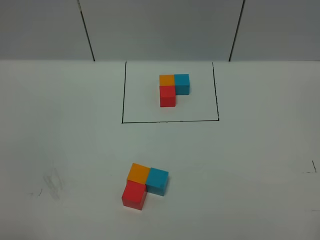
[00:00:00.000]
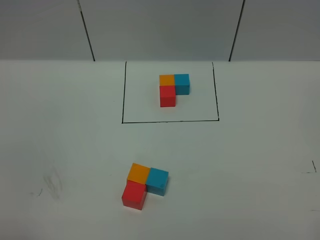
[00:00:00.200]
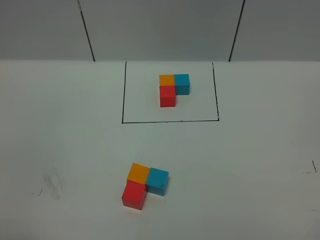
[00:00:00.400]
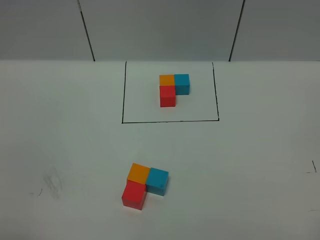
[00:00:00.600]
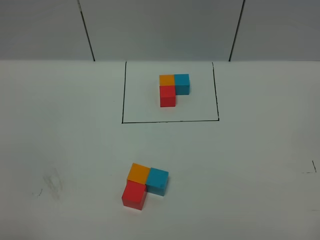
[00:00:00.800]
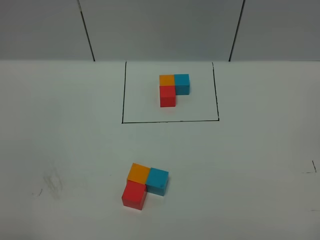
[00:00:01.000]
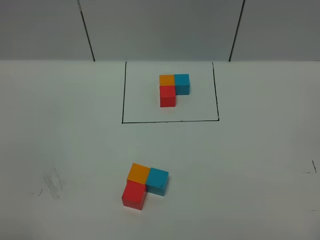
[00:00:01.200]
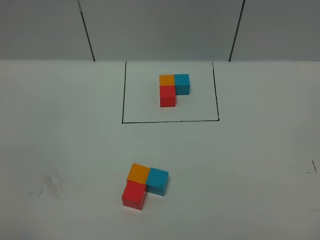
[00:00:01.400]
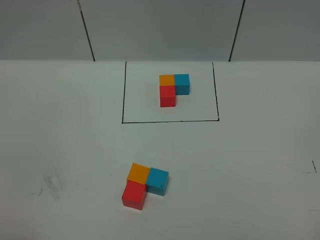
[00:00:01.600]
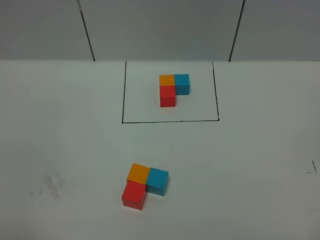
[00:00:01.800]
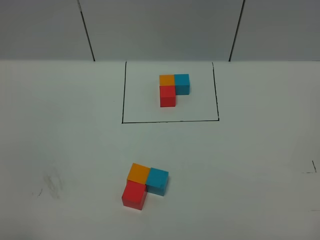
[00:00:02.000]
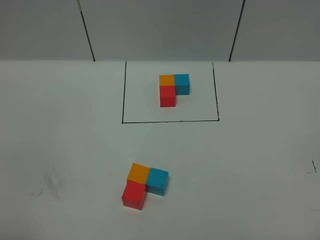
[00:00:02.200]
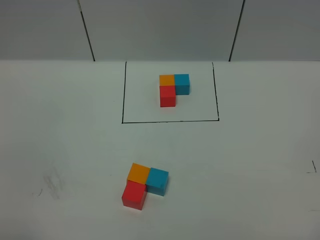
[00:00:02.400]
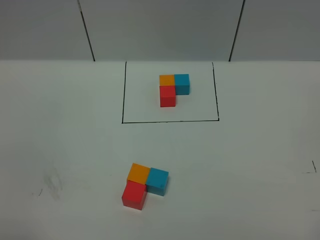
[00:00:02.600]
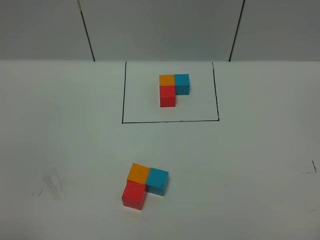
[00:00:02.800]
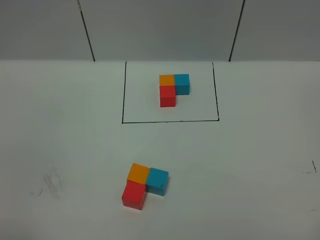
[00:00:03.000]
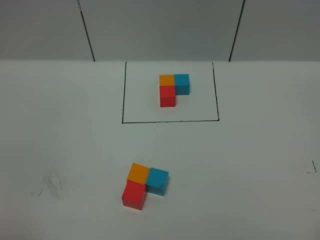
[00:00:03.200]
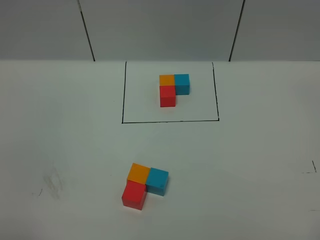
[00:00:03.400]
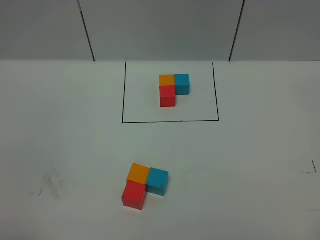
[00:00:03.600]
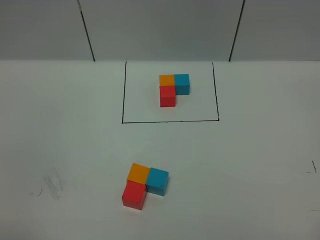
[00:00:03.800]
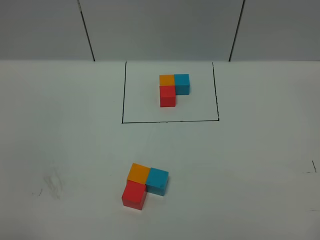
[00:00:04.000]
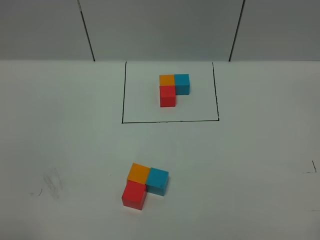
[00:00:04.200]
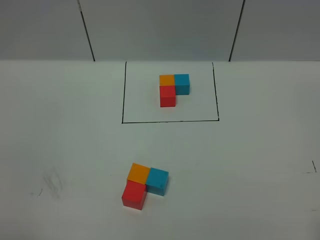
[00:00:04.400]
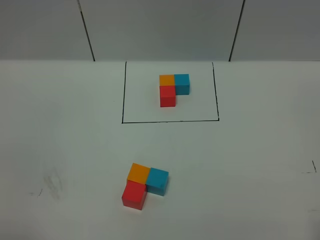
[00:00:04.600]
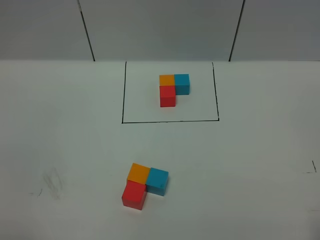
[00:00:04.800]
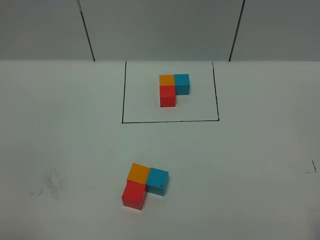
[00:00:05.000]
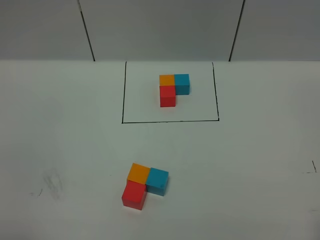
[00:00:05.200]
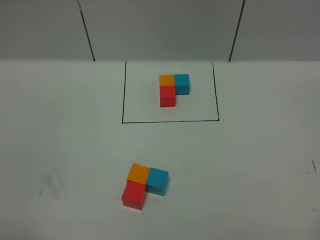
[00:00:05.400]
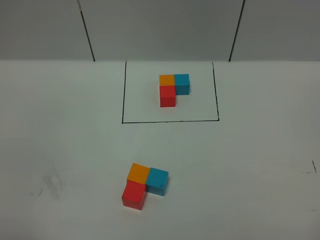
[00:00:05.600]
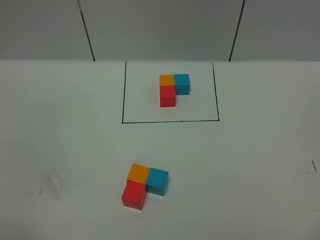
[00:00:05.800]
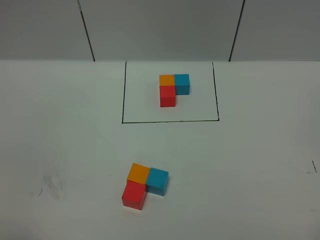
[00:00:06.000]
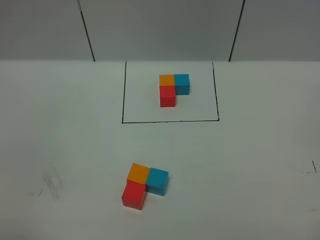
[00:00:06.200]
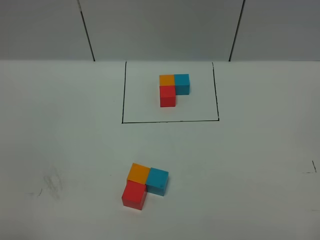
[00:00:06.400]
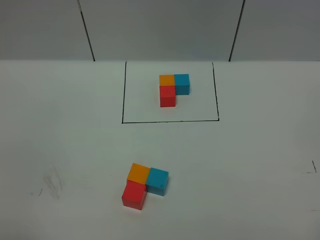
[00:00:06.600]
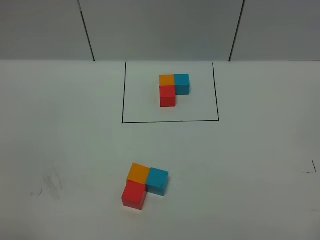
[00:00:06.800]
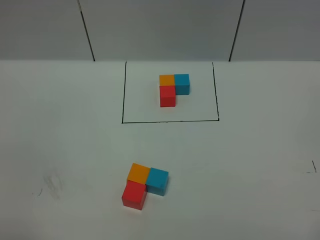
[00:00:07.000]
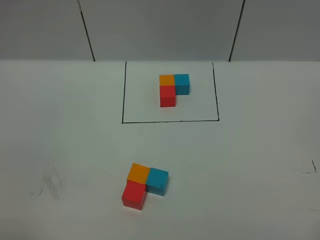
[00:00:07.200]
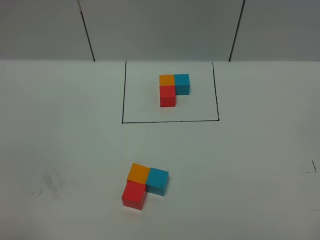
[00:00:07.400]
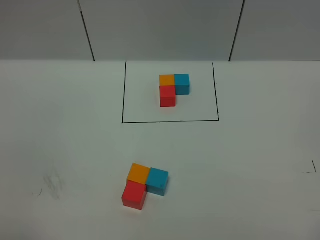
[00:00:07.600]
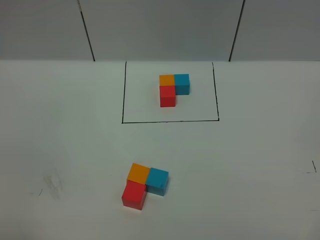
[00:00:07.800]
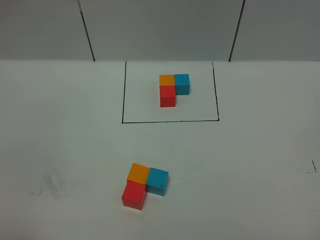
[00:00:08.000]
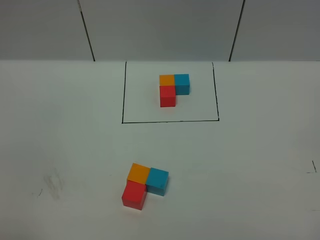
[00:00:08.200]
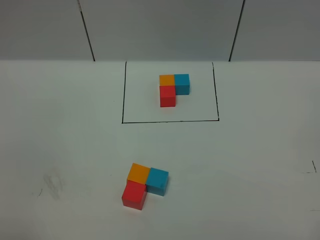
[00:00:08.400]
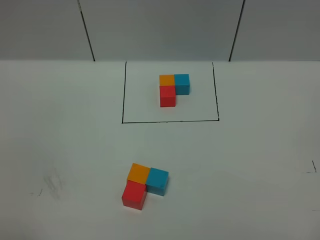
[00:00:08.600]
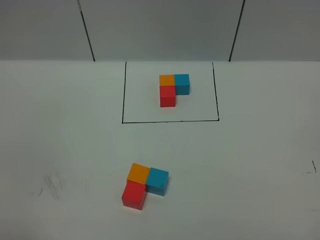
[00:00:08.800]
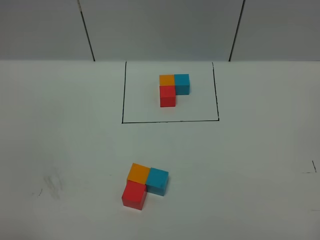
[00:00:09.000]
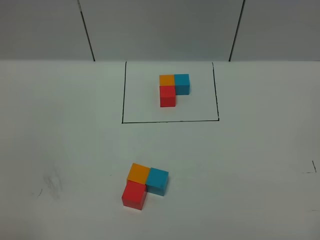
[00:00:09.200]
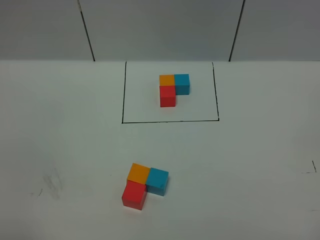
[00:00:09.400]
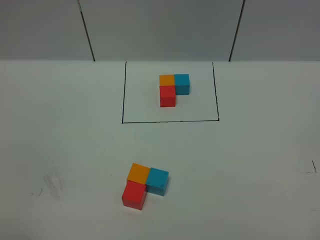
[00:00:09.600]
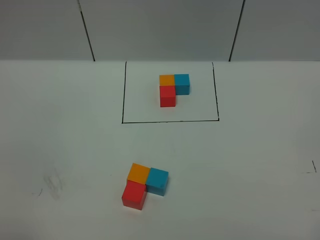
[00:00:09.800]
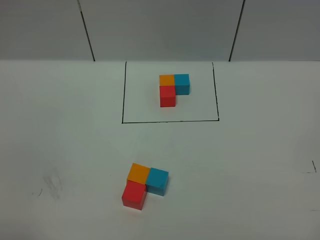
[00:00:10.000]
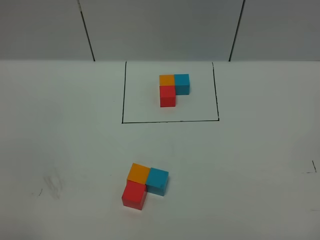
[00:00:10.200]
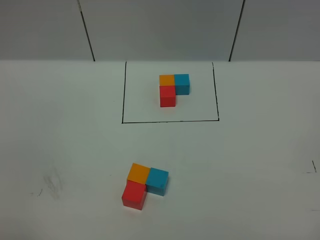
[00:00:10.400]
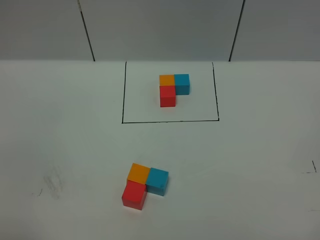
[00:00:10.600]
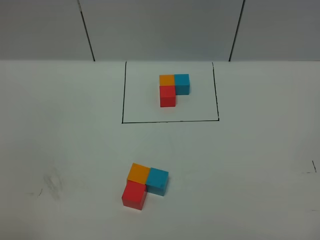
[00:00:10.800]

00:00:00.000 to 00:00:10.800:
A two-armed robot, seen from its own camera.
Task of the whole recording: According to the building block template in front, assemble the scattered blocks together.
00:00:07.800 to 00:00:09.200: Neither gripper changes place.
